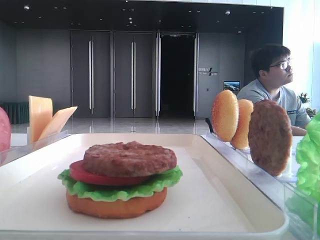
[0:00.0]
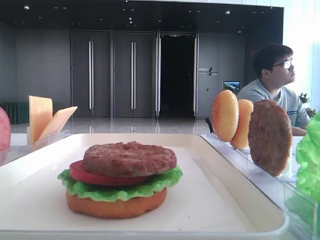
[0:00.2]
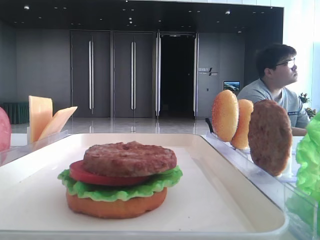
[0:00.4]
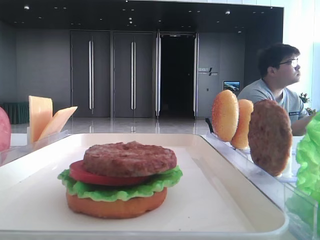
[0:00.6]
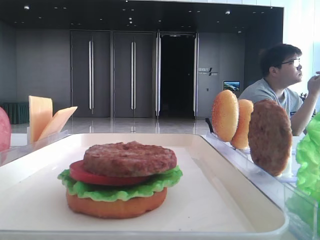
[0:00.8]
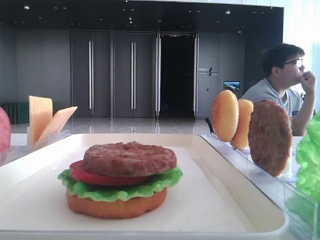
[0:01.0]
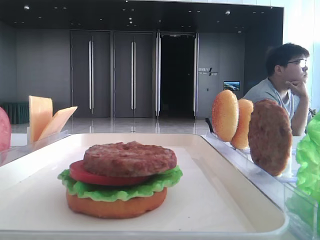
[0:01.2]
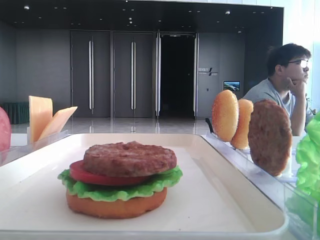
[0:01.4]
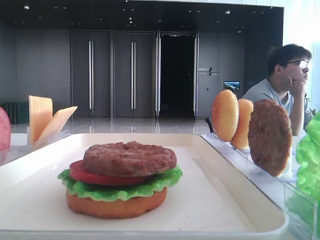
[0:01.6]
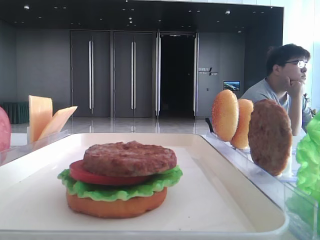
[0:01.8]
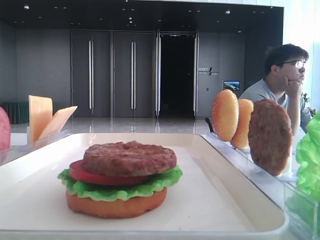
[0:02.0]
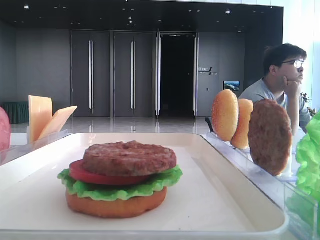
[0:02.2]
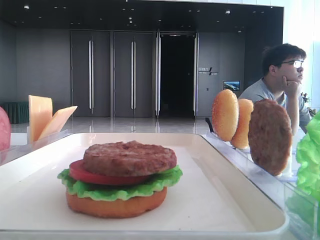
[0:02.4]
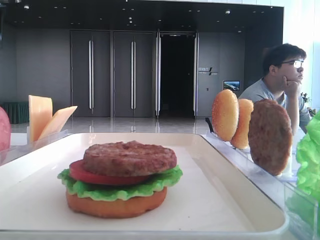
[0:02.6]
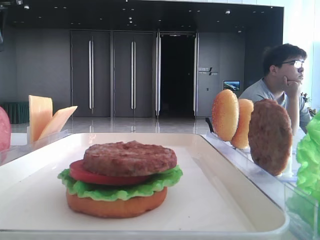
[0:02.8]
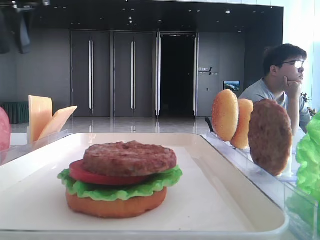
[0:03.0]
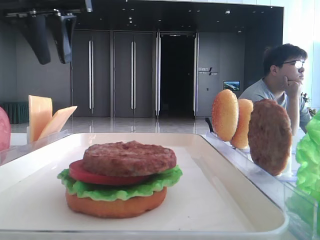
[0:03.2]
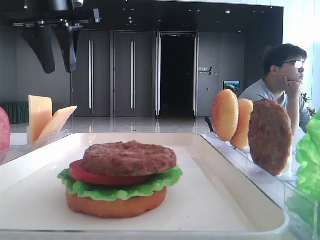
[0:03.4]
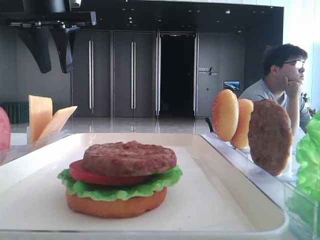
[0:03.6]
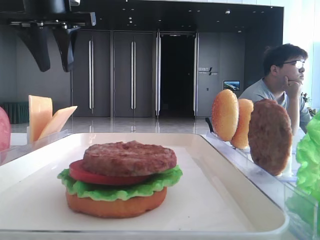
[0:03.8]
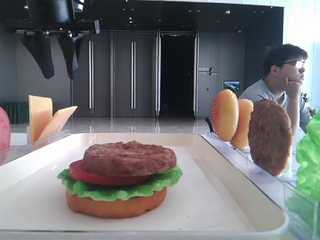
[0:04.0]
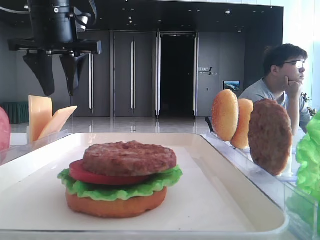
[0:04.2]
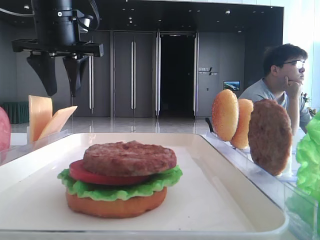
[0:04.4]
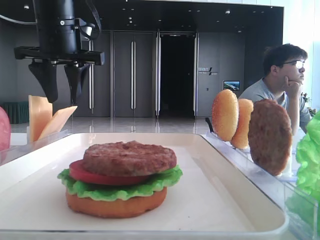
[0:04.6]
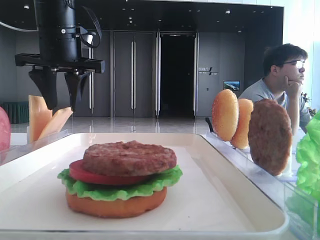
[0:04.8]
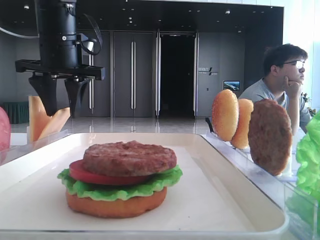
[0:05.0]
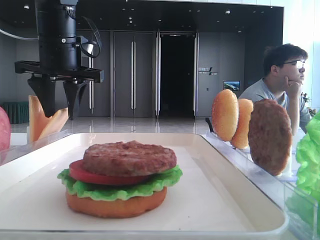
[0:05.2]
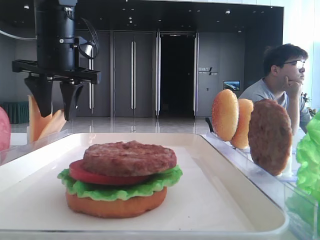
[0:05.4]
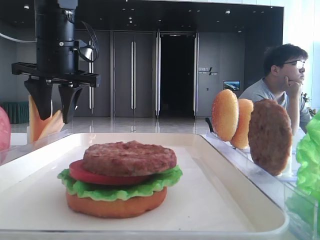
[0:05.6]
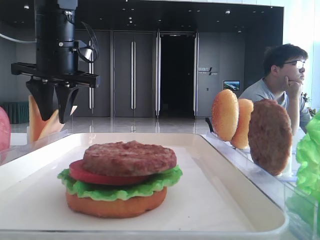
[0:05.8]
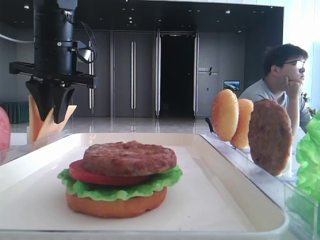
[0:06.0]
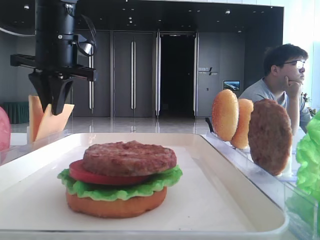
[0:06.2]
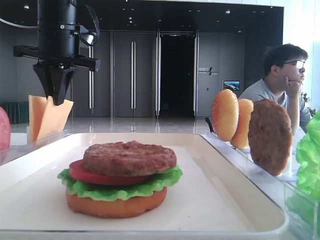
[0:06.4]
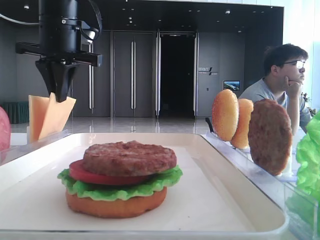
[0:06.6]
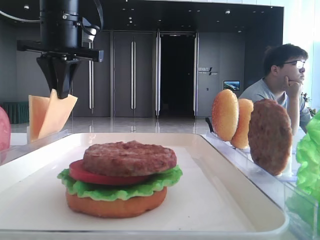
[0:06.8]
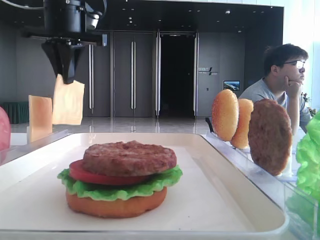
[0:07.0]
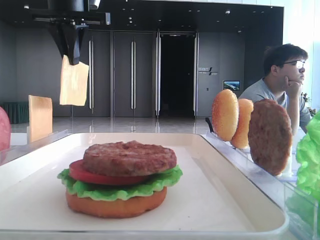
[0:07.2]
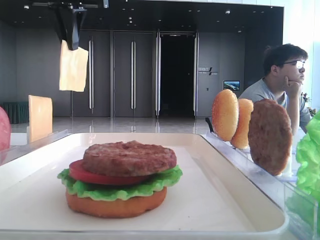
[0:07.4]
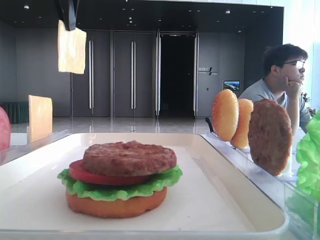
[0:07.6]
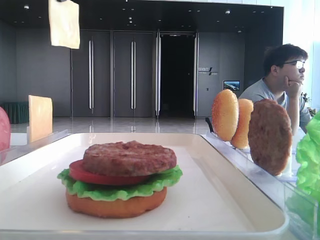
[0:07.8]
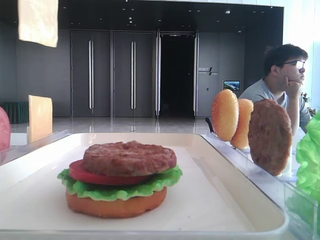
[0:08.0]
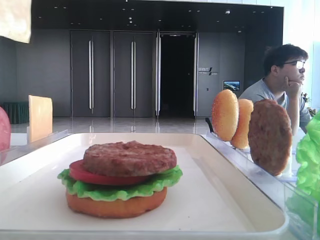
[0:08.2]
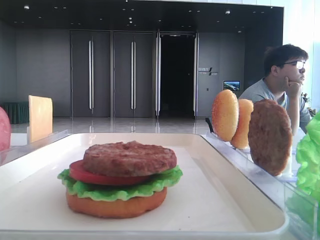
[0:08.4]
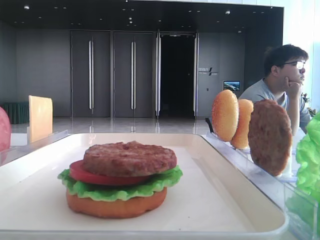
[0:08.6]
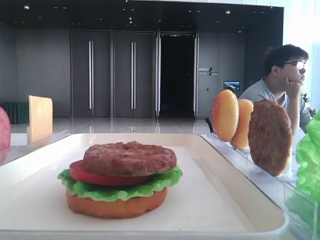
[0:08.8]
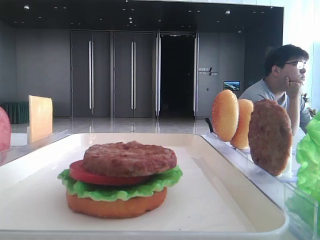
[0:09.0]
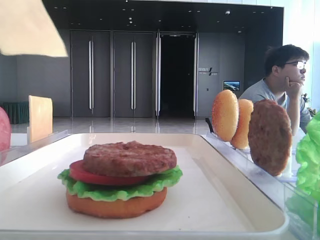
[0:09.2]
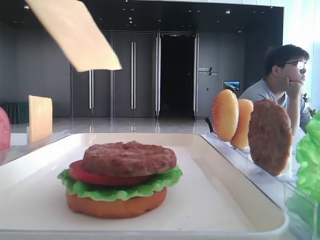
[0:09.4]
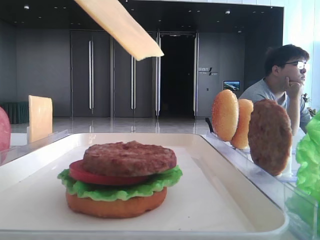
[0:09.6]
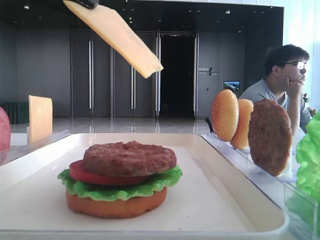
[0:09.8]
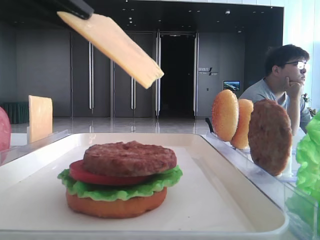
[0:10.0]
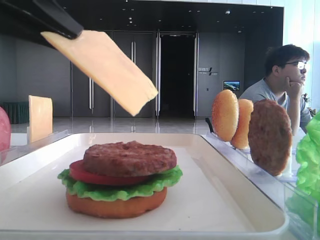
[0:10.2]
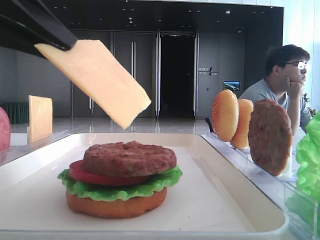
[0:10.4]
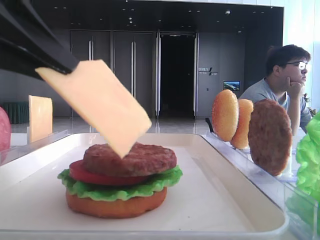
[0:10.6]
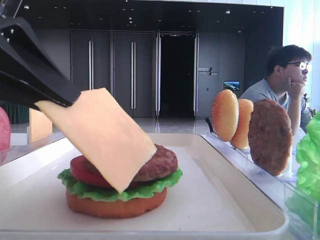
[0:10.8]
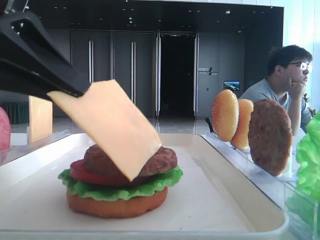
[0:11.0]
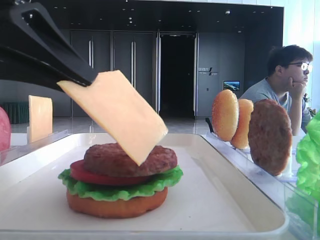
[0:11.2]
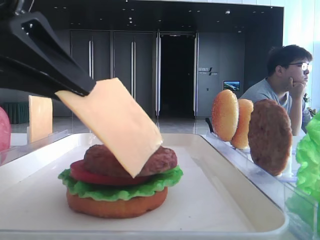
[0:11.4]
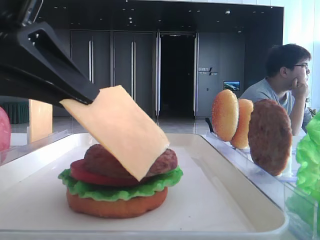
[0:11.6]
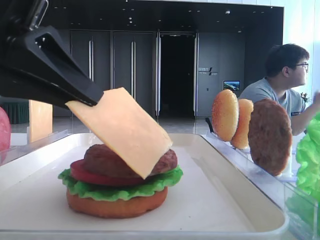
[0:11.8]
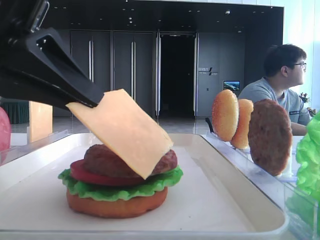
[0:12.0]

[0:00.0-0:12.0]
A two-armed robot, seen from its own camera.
Step, 0:00.0 to 0:06.2: Pick up the cheese slice with the left hand.
0:01.6 to 0:03.0: The left gripper goes about 25 cm forward.
0:03.0 to 0:04.4: The left gripper heads to the right and downward, covering about 10 cm.
0:04.4 to 0:06.0: There are only small adjustments of the grippers.
0:06.0 to 0:07.6: The left gripper shifts approximately 15 cm upward, and closes.
0:07.6 to 0:09.0: The left gripper travels backward by approximately 25 cm.
0:09.0 to 0:10.4: The left gripper shifts some 15 cm downward and to the right.
0:10.4 to 0:12.0: The left gripper changes place by some 5 cm.

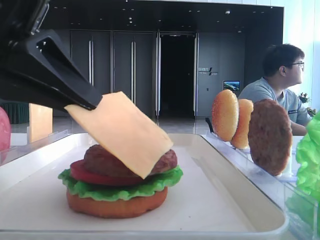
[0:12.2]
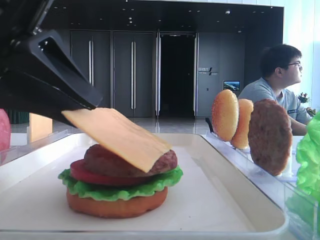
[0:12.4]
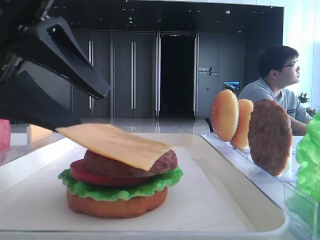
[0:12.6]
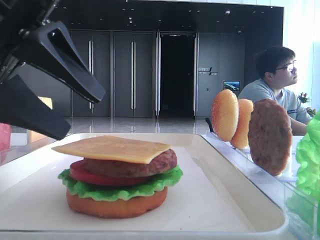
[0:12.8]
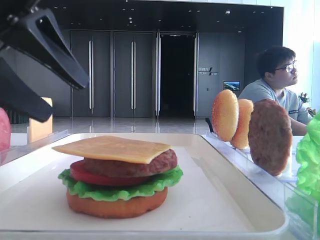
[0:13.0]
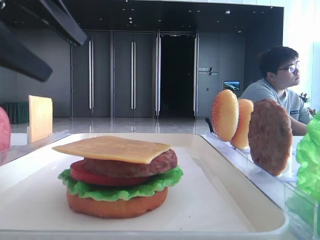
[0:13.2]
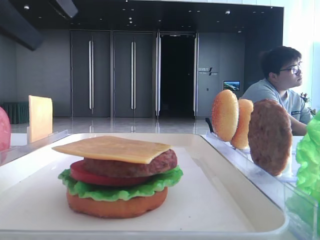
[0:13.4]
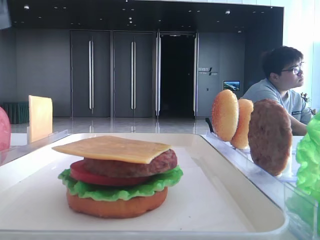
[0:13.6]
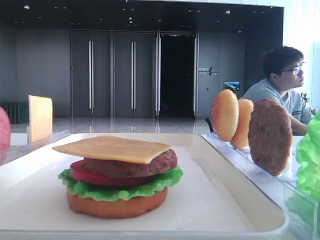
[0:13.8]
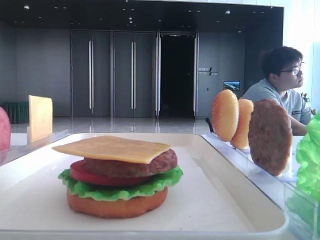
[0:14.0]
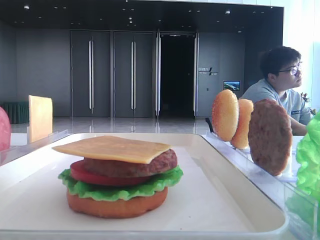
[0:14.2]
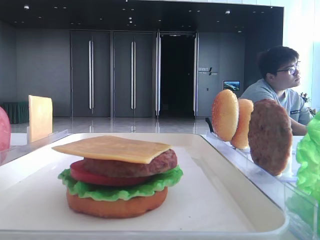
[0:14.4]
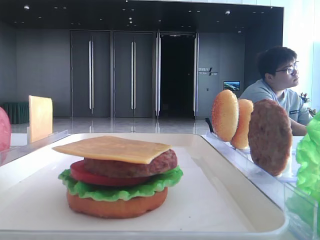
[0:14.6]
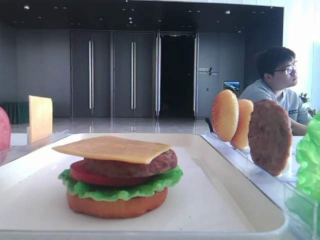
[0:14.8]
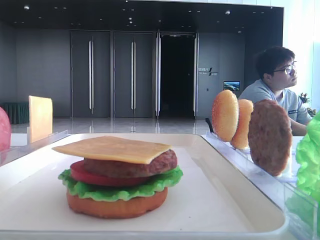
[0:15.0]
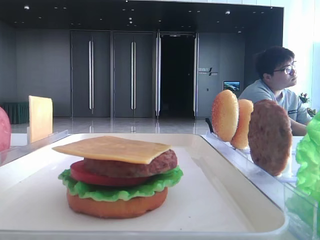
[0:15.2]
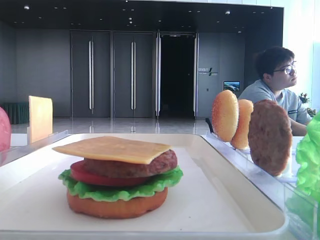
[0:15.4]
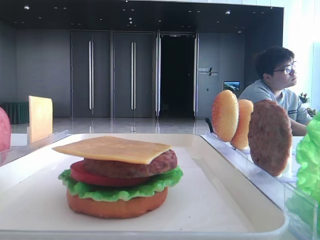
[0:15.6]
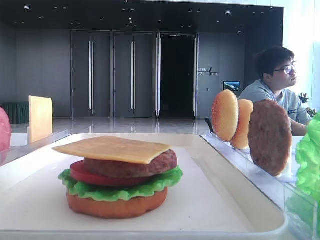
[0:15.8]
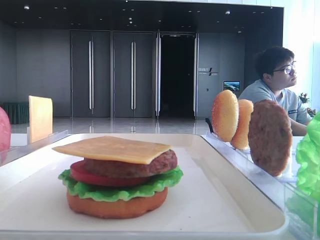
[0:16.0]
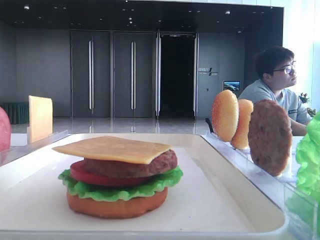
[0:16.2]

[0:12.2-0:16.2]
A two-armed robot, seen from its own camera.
0:12.2 to 0:13.6: The left gripper heads upward and to the left, covering some 15 cm, and opens up.

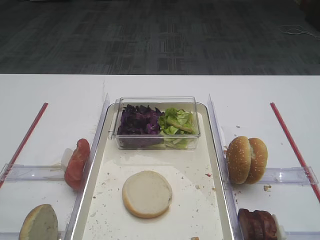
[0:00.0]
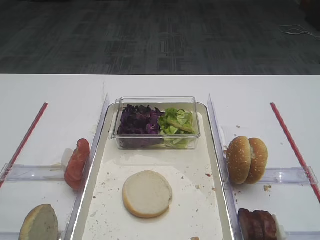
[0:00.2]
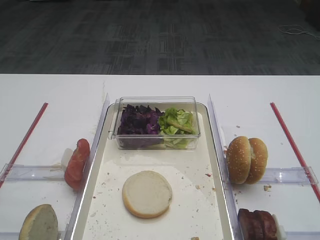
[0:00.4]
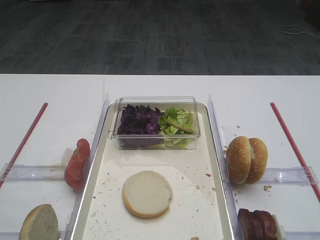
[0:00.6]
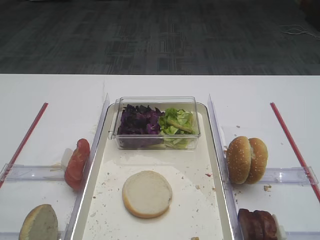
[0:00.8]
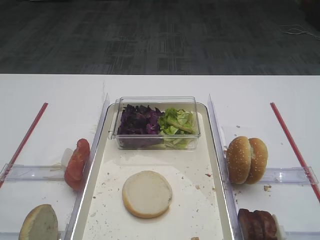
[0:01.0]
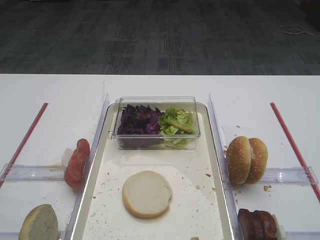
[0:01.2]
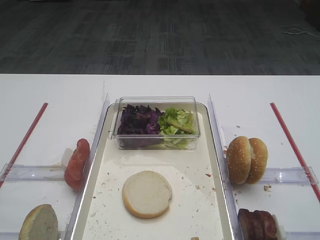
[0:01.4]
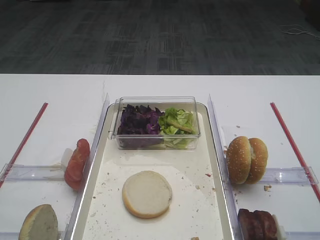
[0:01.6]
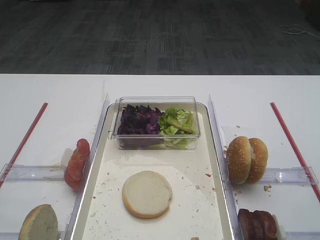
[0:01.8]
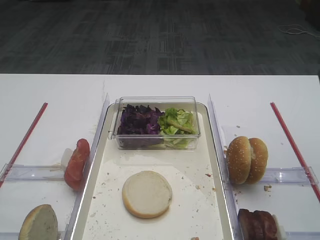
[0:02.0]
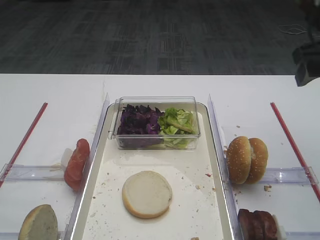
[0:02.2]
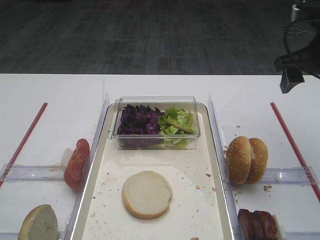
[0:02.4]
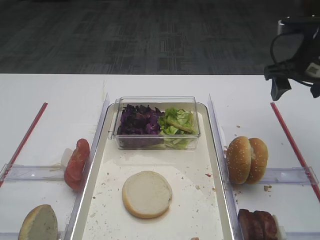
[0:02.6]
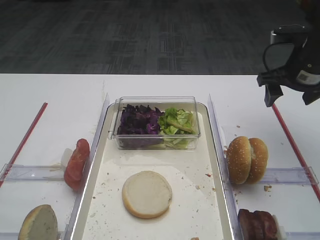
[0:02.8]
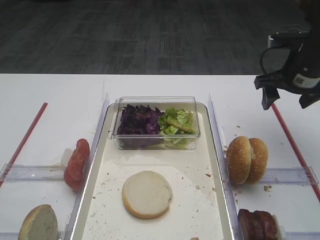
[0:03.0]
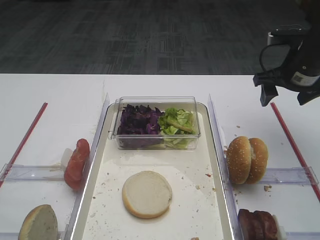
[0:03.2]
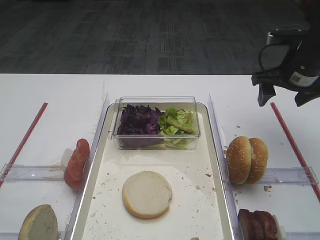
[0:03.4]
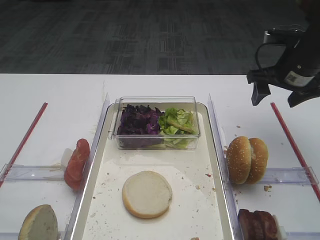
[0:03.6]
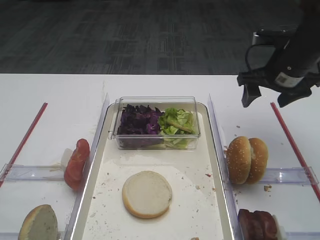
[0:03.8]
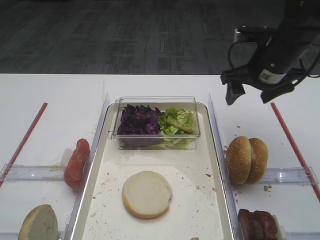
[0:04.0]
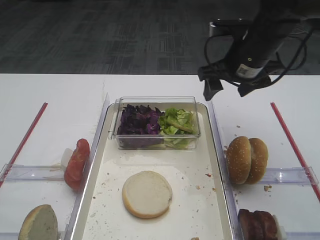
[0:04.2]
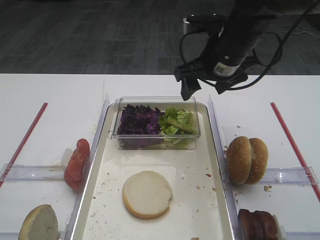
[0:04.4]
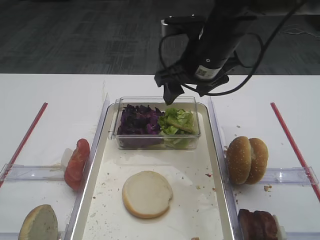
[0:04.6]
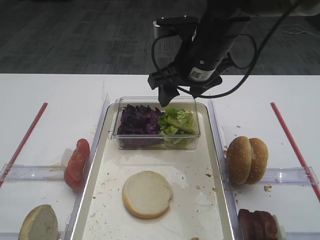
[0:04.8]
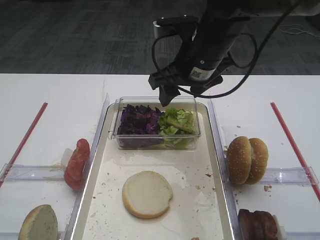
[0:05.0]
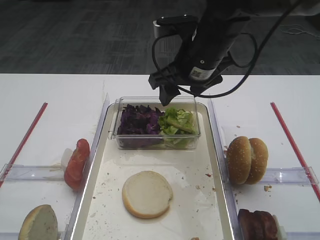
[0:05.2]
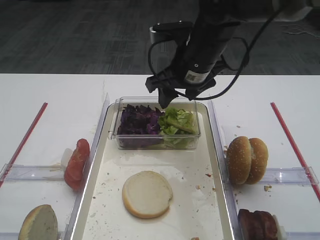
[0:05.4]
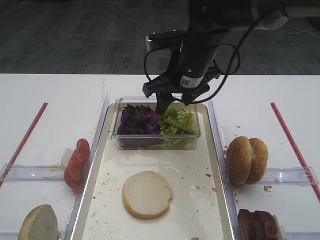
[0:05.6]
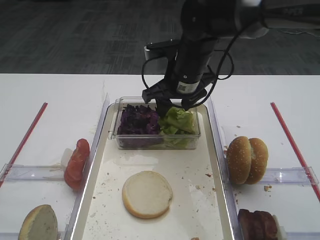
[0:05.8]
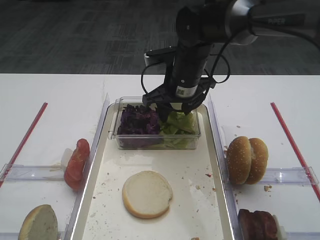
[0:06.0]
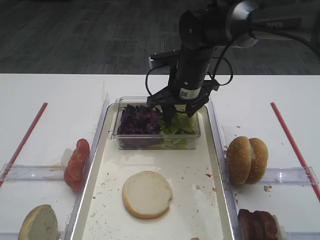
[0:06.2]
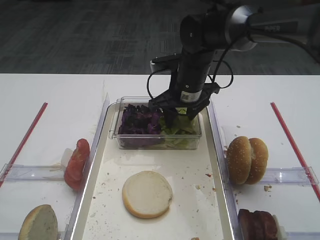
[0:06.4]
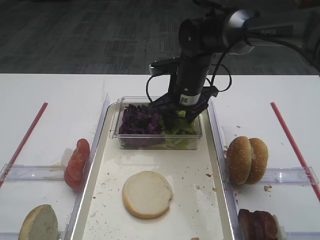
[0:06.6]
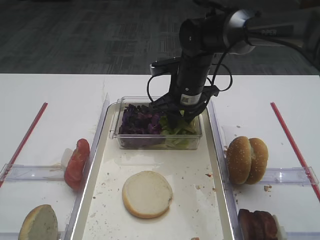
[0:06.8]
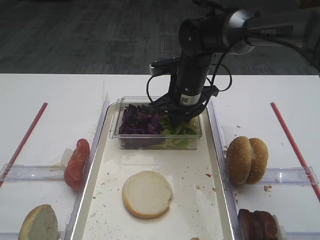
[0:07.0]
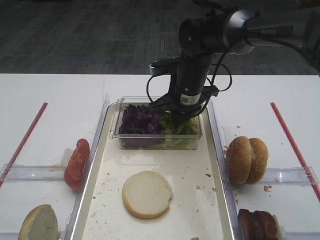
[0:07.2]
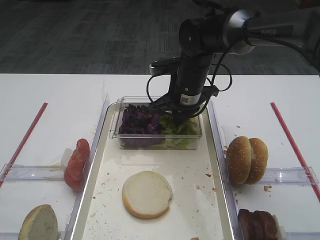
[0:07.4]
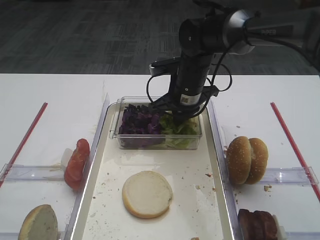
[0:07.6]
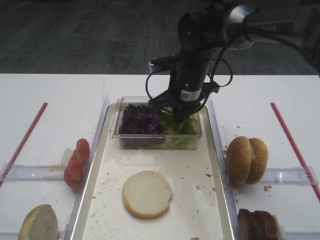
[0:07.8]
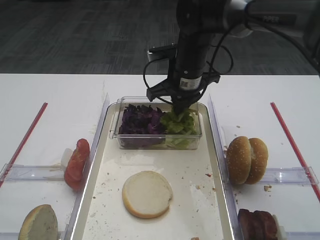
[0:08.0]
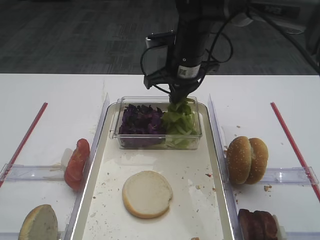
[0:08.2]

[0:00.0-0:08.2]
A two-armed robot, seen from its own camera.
0:01.6 to 0:03.2: The right gripper is displaced forward and downward by approximately 30 cm.
0:03.2 to 0:05.0: The right gripper heads to the left, covering roughly 20 cm.
0:05.0 to 0:06.6: The right gripper moves downward and forward, approximately 10 cm.
0:06.6 to 0:08.2: The right gripper is displaced upward by approximately 5 cm, and closes its fingers.
